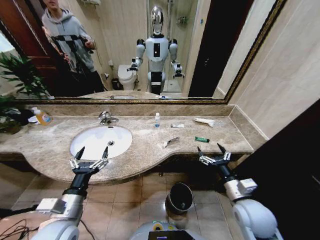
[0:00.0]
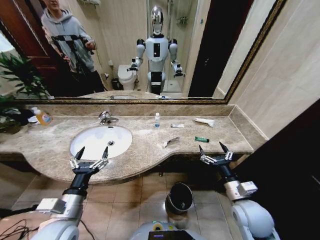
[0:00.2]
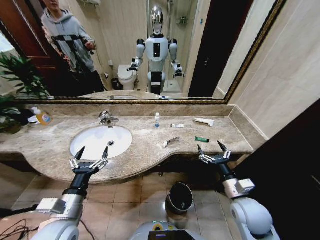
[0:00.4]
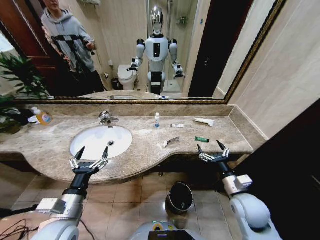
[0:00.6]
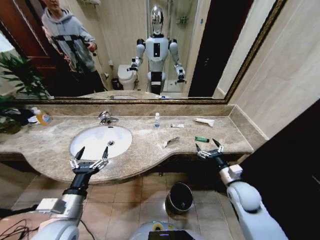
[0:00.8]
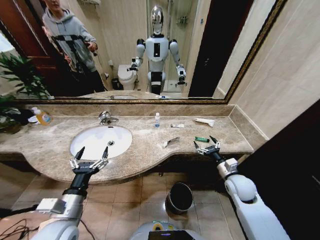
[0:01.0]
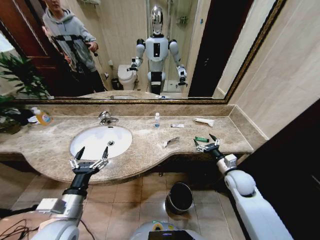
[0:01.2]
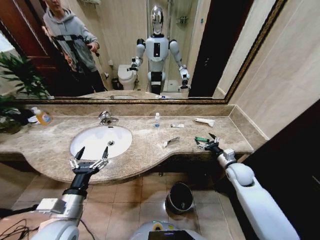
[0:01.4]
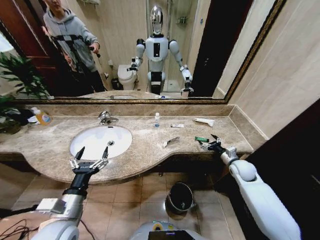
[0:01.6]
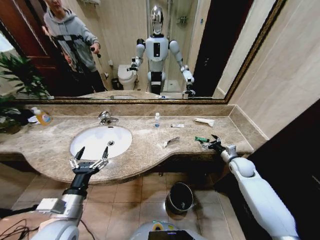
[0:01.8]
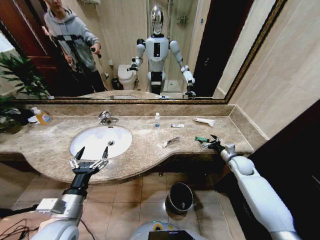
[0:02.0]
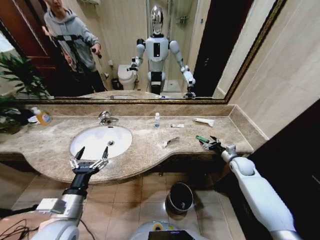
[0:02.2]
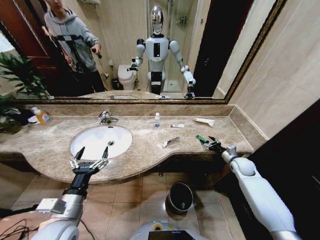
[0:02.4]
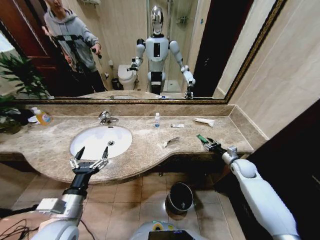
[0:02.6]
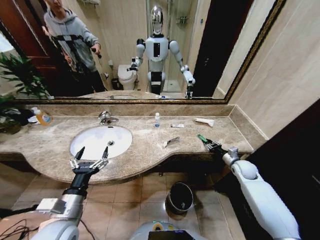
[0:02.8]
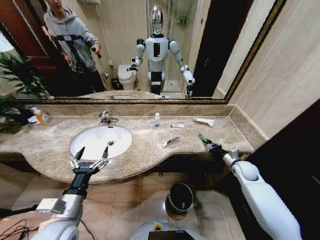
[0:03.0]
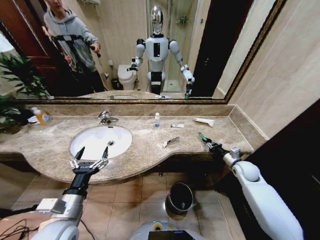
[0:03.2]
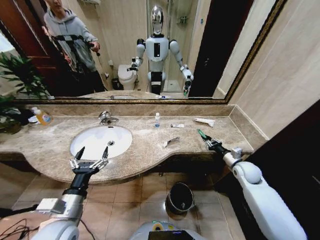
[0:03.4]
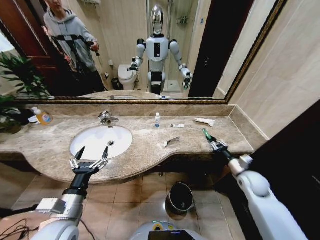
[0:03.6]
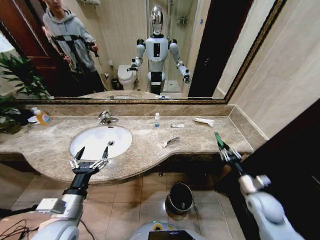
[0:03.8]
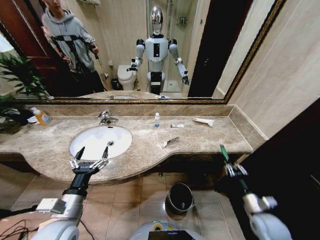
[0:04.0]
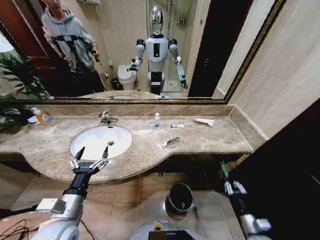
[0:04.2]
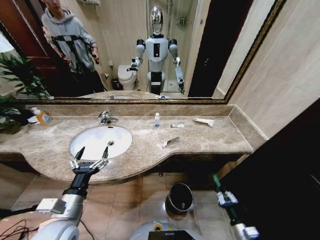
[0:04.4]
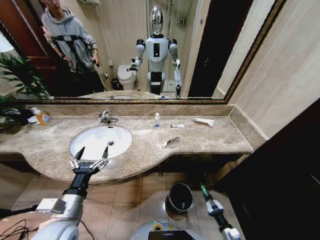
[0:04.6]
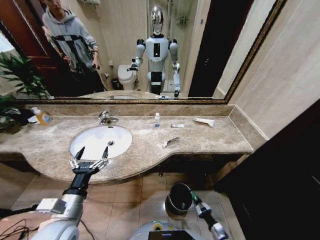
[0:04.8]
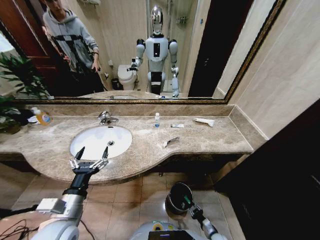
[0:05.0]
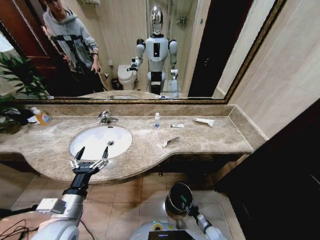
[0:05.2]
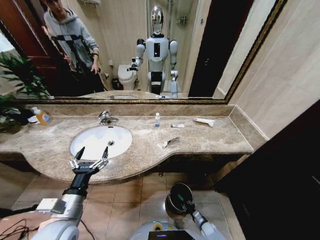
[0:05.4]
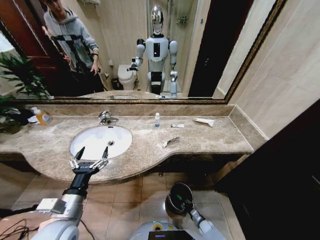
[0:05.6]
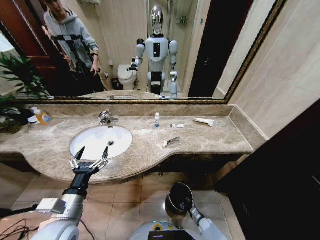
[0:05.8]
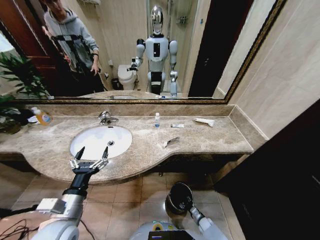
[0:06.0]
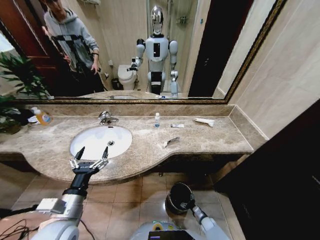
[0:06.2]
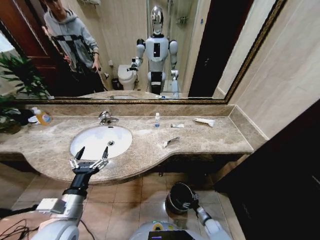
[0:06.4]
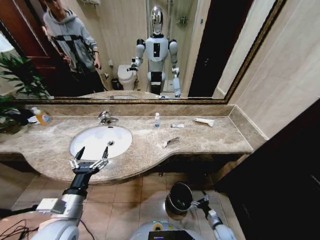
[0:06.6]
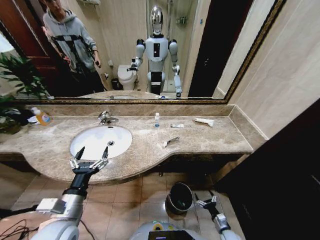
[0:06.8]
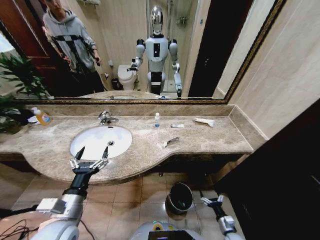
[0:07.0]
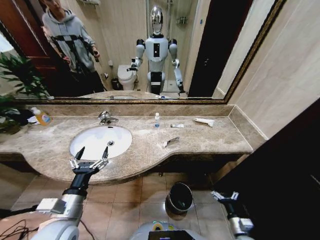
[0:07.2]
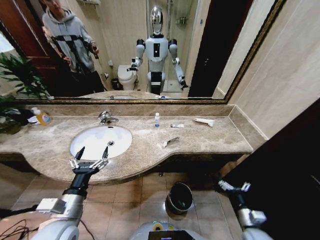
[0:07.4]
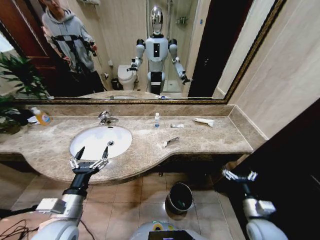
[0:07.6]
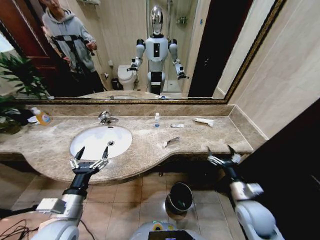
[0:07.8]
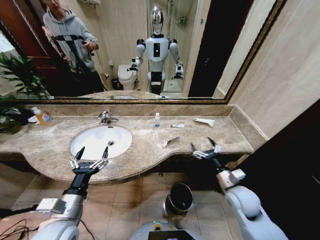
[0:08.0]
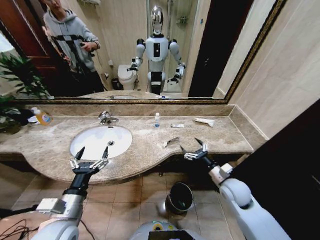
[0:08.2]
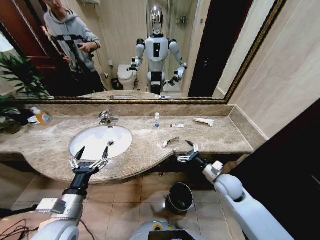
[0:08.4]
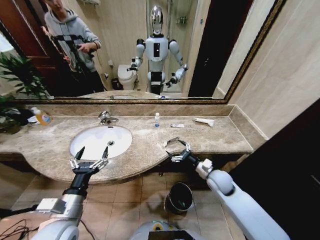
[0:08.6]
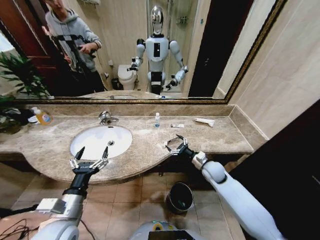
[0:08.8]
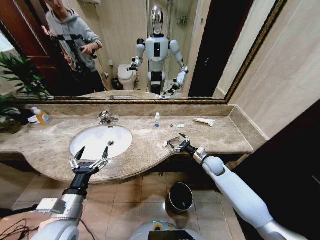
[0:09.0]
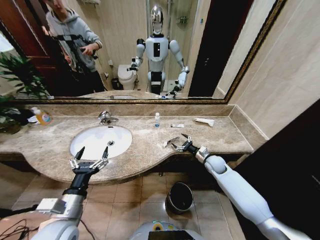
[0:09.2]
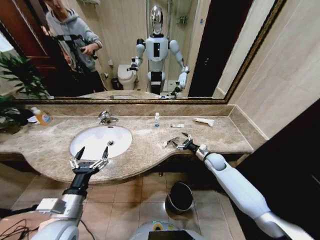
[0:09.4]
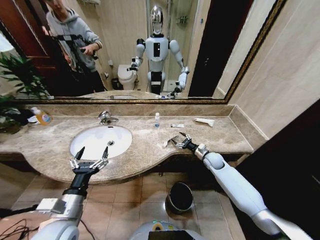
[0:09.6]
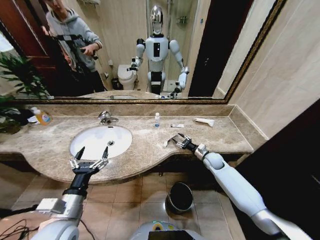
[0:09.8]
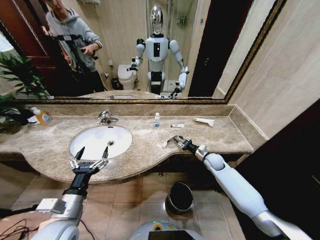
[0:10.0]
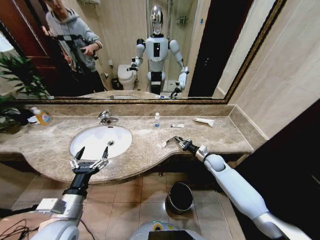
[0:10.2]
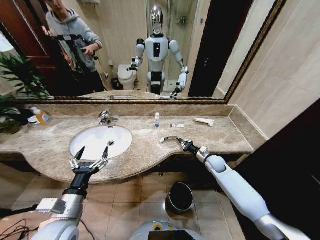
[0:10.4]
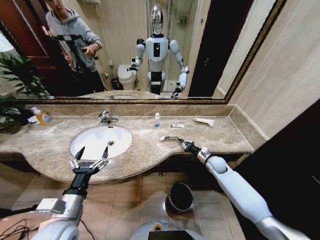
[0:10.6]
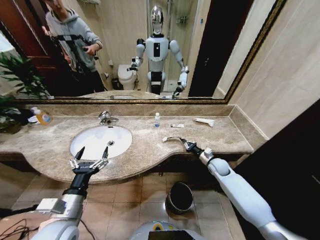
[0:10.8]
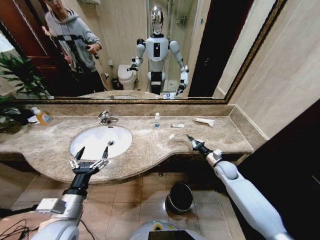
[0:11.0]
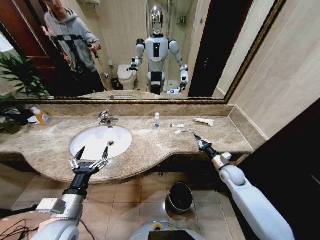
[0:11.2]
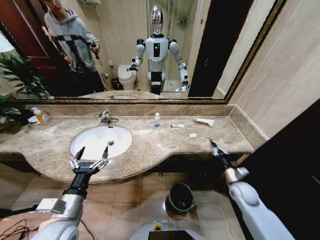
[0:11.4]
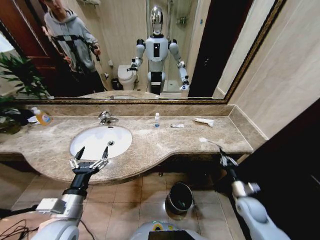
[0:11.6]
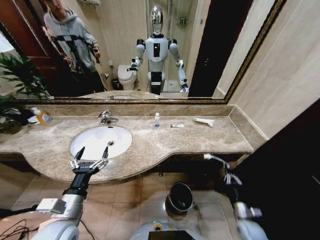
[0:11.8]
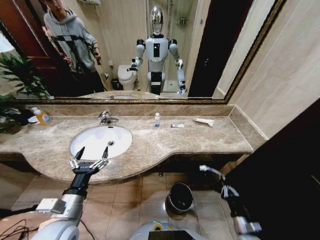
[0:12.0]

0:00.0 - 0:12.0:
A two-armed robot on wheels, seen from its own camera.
Task of the whole recording: Pick up the trash from the sink and place it in the trash bin.
0:01.6 - 0:03.0: The right gripper closes.
0:03.0 - 0:04.4: The right gripper goes roughly 30 cm backward and downward.
0:04.4 - 0:06.0: The right gripper heads downward and forward, covering approximately 25 cm.
0:06.0 - 0:07.6: The right gripper shifts roughly 40 cm upward, and opens up.
0:07.6 - 0:09.0: The right gripper travels forward by about 25 cm.
0:09.0 - 0:10.4: The right gripper ends up some 5 cm from where it was, and closes up.
0:10.4 - 0:12.0: The right gripper is displaced backward and downward by some 35 cm.

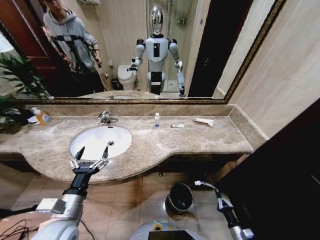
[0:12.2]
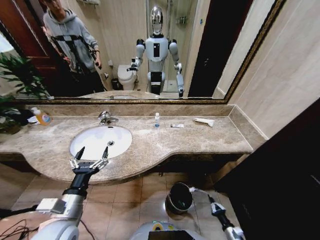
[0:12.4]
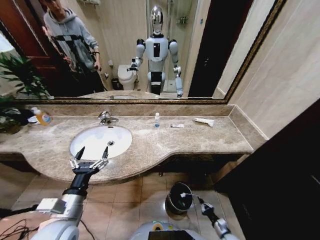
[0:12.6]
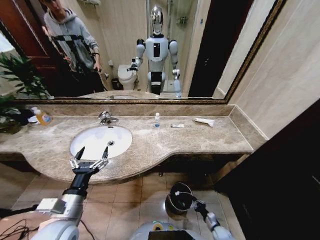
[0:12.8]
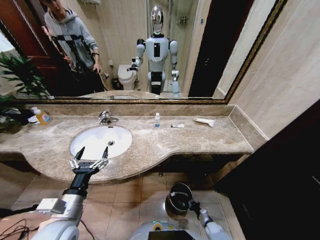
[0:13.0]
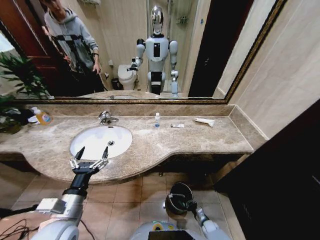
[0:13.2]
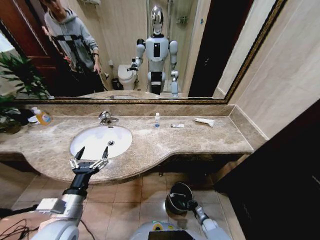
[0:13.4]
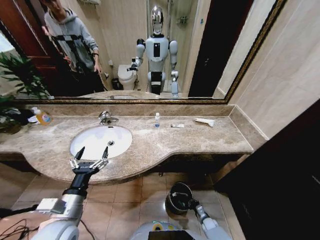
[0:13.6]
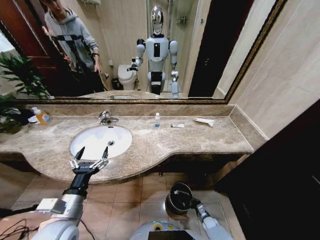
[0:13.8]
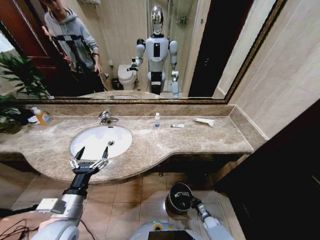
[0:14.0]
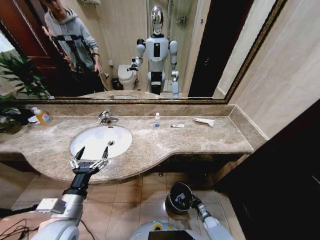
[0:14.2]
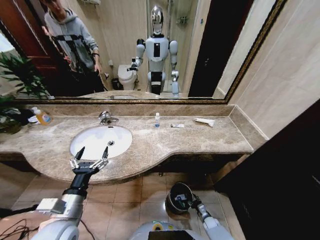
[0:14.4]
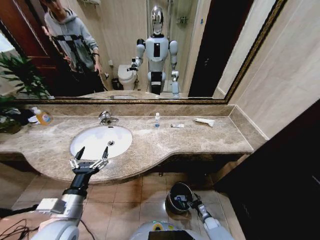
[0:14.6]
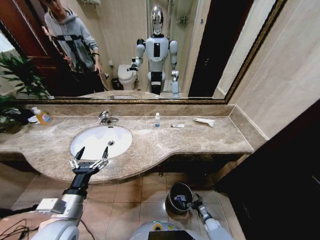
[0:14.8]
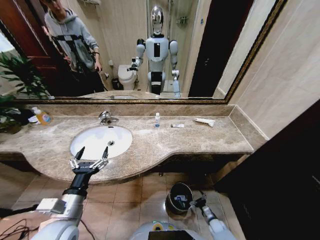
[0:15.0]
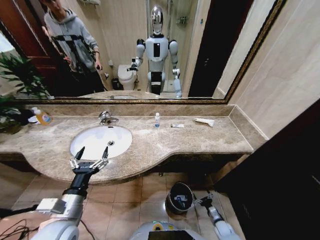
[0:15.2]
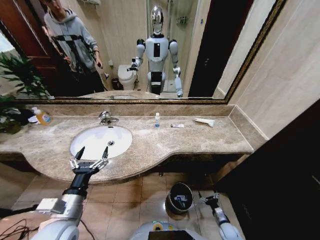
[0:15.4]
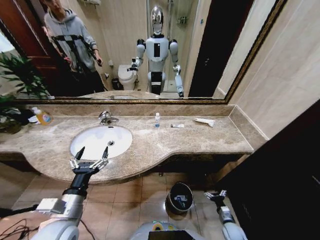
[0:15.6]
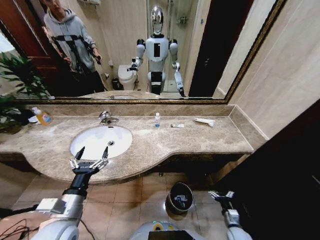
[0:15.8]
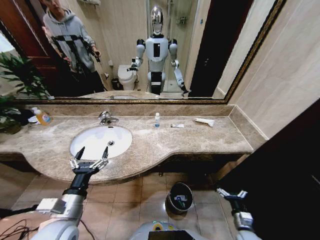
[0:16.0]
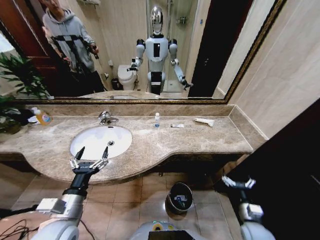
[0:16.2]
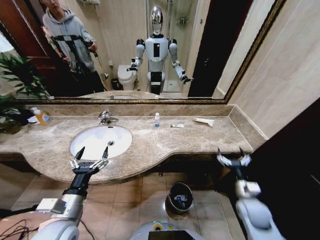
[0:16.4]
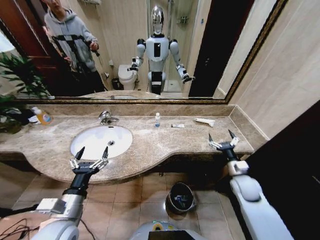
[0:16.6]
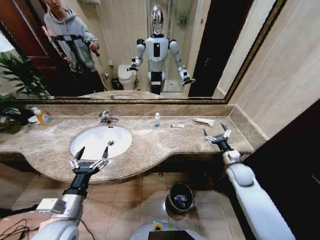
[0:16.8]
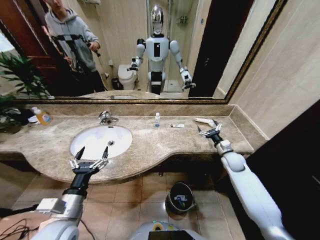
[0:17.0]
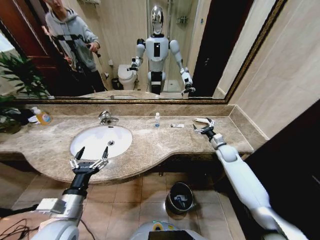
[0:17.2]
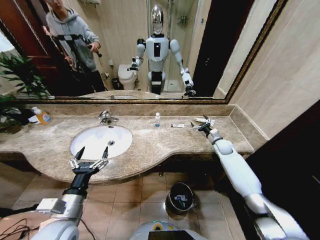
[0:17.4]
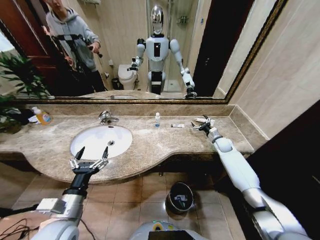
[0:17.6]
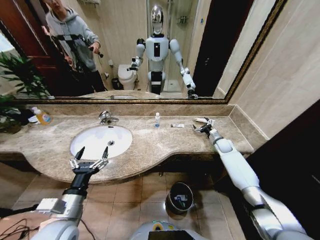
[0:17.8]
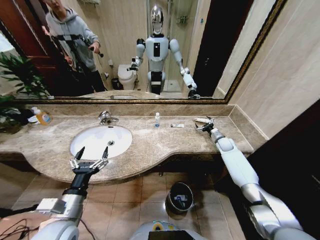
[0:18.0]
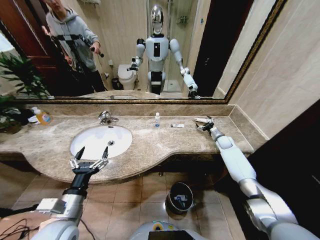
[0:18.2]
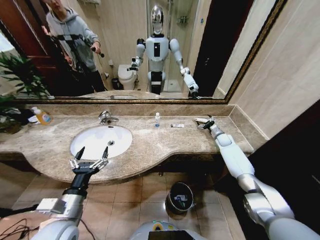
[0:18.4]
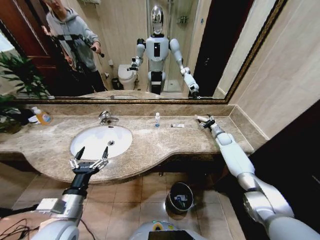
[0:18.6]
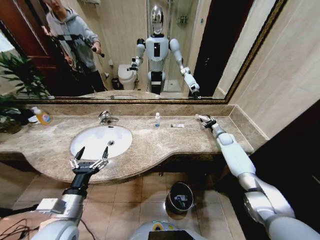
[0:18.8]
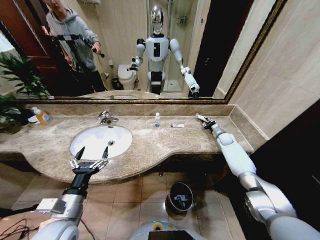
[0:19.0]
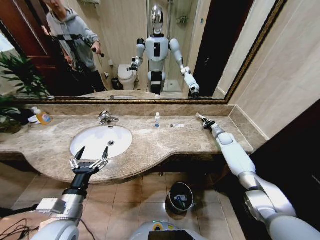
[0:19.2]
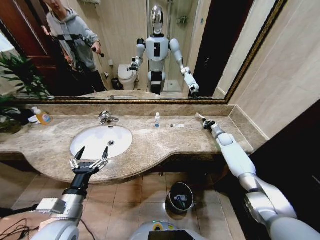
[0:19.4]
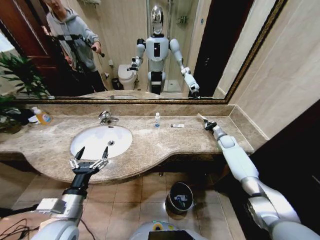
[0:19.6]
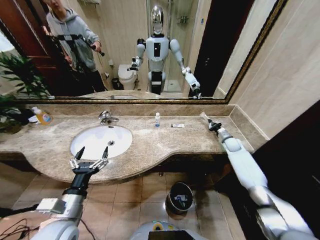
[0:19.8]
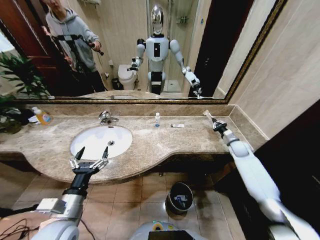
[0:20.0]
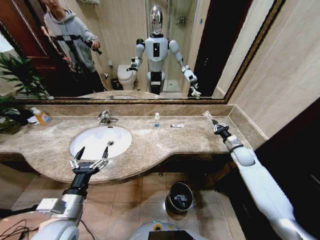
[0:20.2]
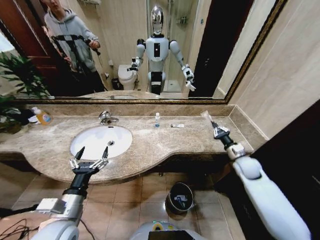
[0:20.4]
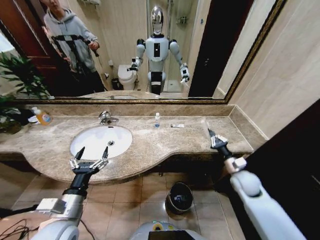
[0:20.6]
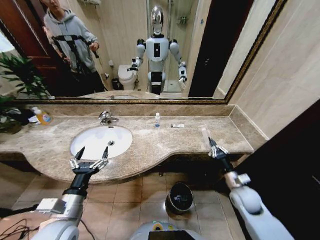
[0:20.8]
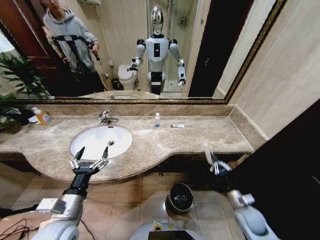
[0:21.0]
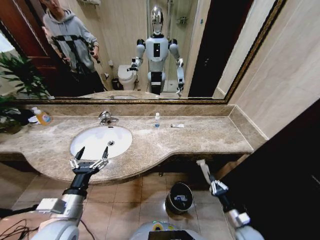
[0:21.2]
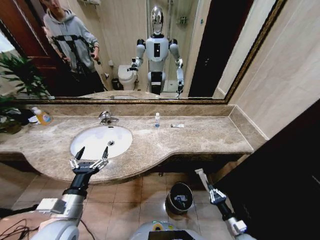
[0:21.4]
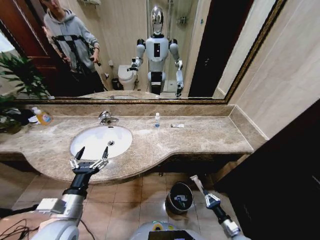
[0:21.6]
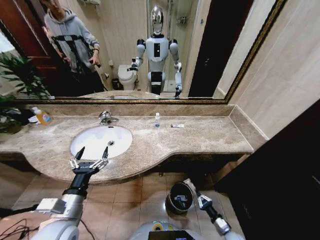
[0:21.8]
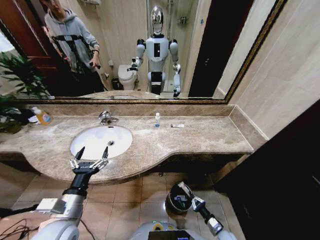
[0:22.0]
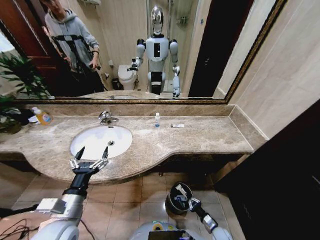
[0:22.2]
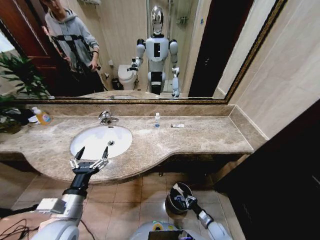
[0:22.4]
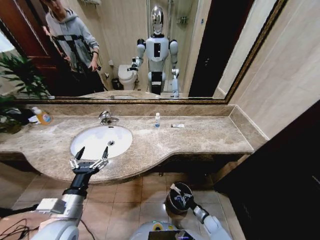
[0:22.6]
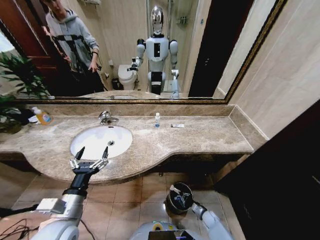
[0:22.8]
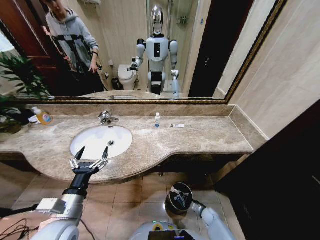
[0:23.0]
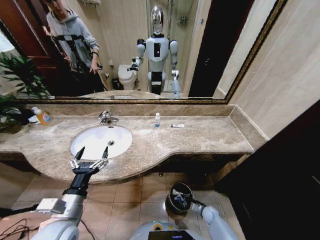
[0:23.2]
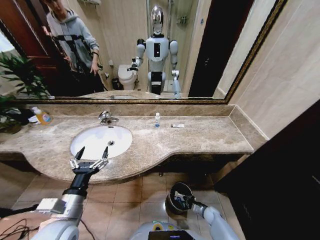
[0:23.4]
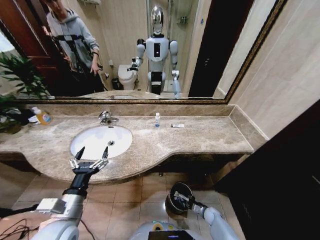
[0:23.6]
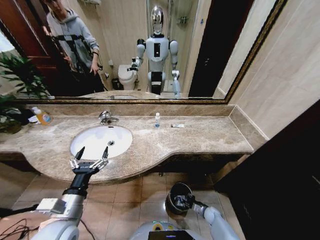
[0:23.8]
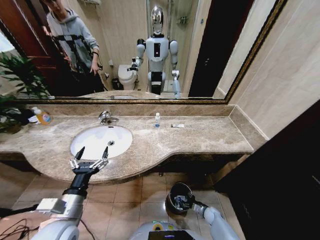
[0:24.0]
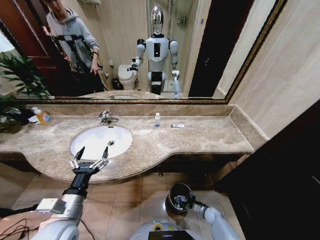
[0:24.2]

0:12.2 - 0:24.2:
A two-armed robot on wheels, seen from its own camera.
Task of the whole recording: Pick up the trash from the sink and place it in the trash bin.
0:12.2 - 0:13.8: The right gripper shifts roughly 20 cm downward, forward and to the left.
0:13.8 - 0:15.2: The right gripper changes place by some 5 cm, and opens.
0:15.2 - 0:16.6: The right gripper shifts roughly 35 cm upward.
0:16.6 - 0:18.2: The right gripper travels forward by about 25 cm.
0:18.2 - 0:19.8: The right gripper closes.
0:19.8 - 0:21.2: The right gripper shifts some 40 cm backward.
0:21.2 - 0:22.6: The right gripper is displaced downward by roughly 20 cm.
0:22.6 - 0:24.2: The right gripper opens up.
